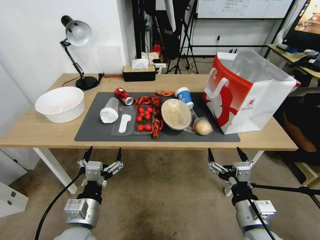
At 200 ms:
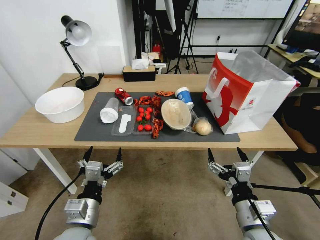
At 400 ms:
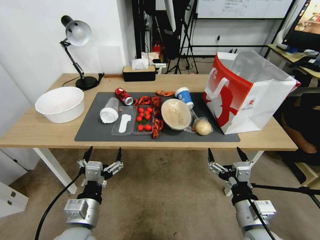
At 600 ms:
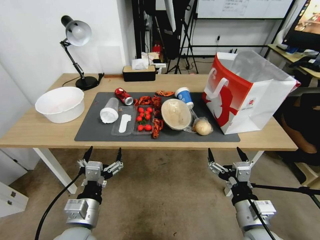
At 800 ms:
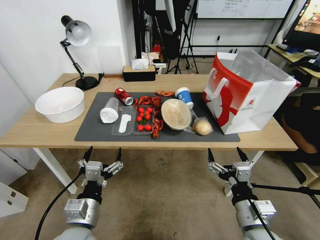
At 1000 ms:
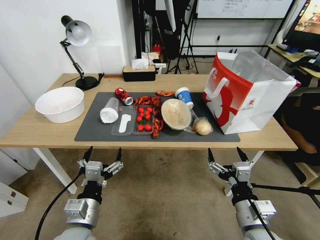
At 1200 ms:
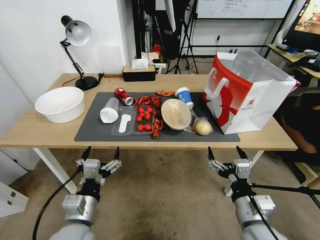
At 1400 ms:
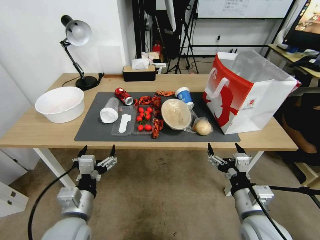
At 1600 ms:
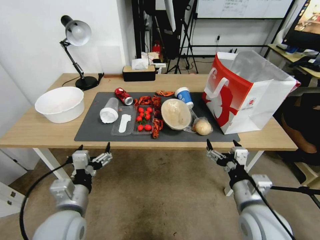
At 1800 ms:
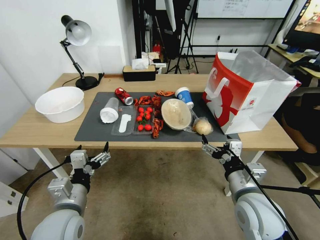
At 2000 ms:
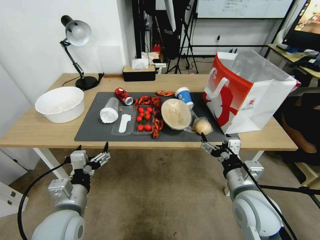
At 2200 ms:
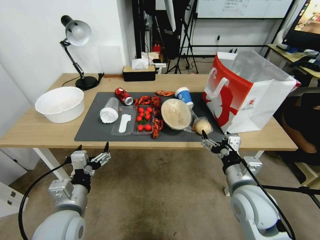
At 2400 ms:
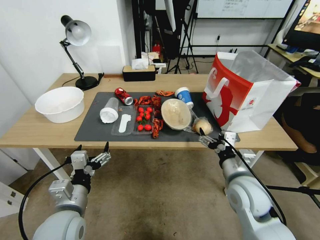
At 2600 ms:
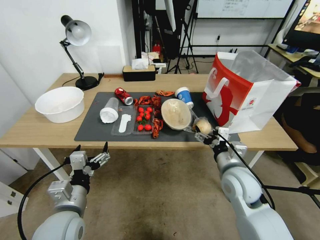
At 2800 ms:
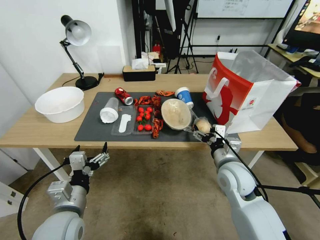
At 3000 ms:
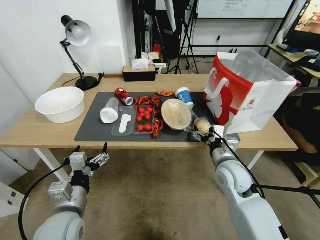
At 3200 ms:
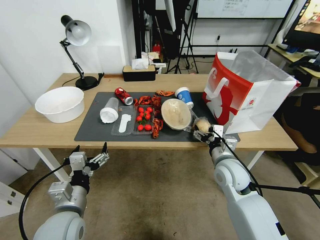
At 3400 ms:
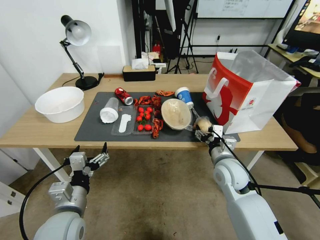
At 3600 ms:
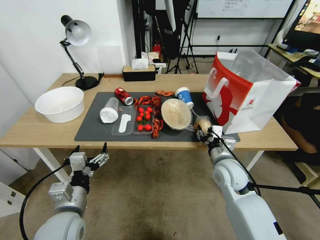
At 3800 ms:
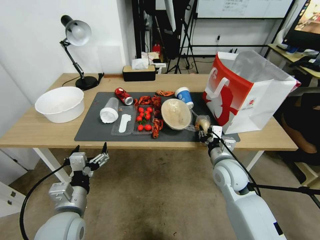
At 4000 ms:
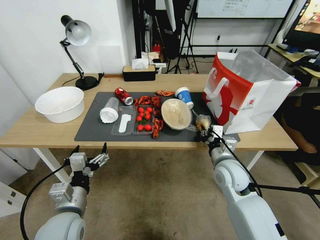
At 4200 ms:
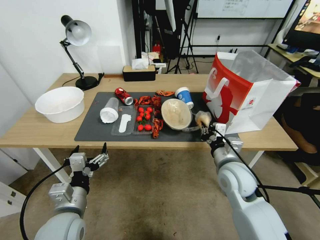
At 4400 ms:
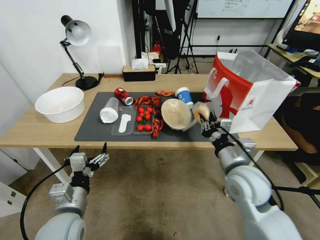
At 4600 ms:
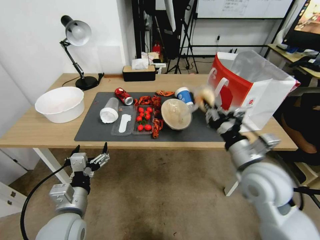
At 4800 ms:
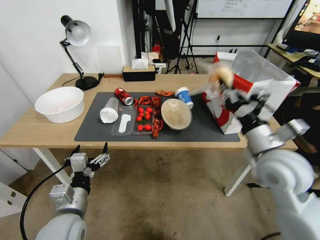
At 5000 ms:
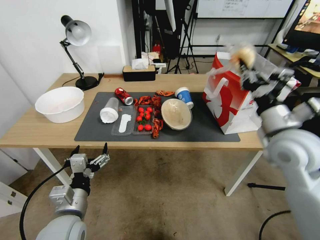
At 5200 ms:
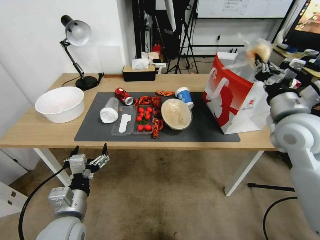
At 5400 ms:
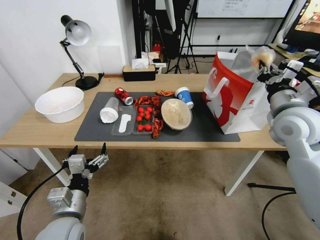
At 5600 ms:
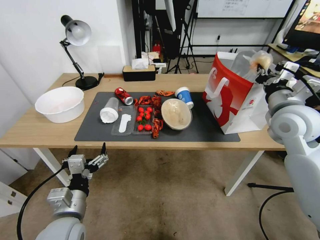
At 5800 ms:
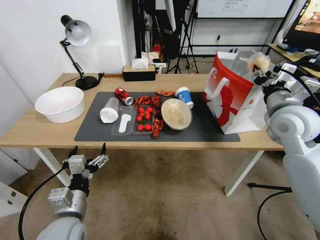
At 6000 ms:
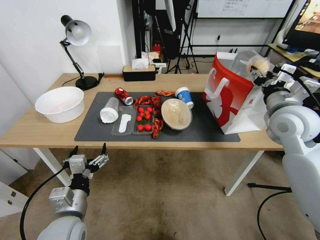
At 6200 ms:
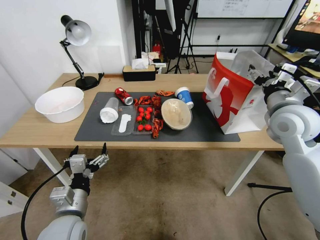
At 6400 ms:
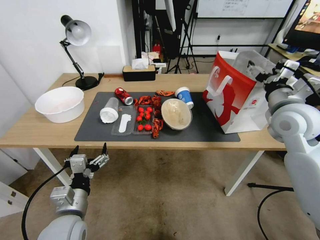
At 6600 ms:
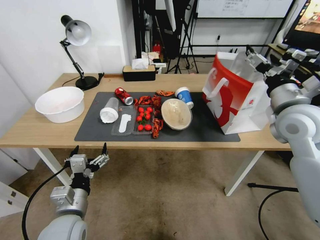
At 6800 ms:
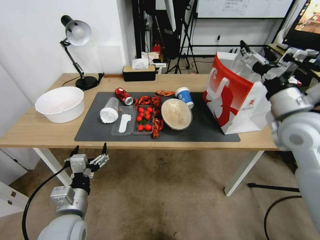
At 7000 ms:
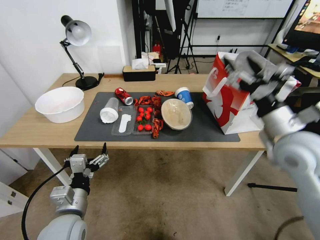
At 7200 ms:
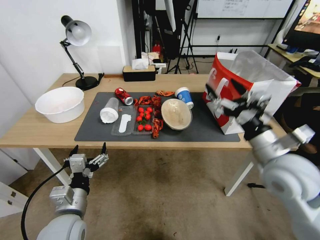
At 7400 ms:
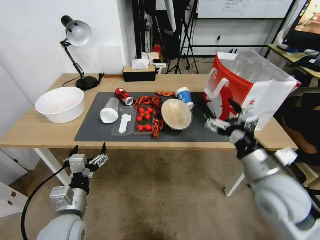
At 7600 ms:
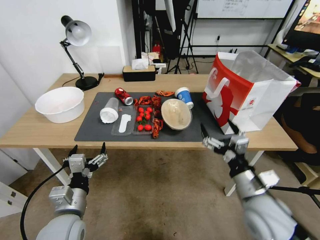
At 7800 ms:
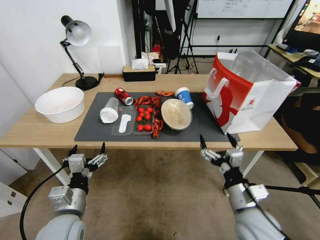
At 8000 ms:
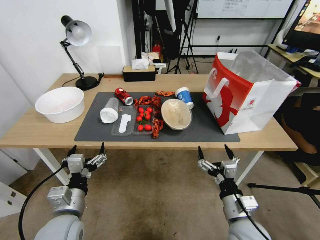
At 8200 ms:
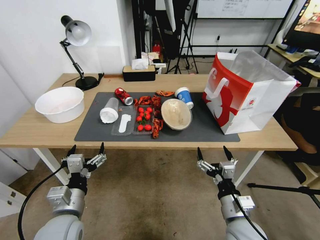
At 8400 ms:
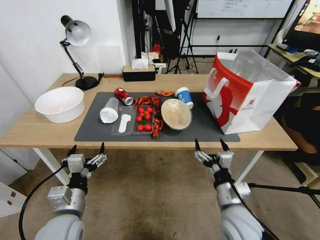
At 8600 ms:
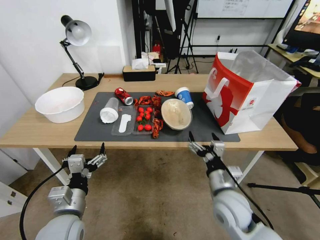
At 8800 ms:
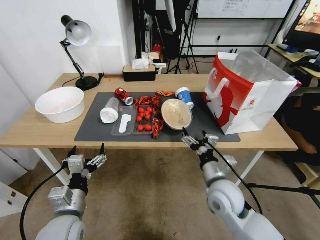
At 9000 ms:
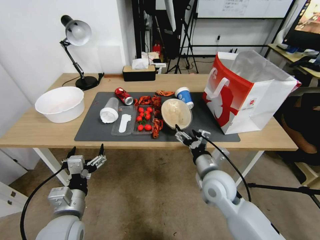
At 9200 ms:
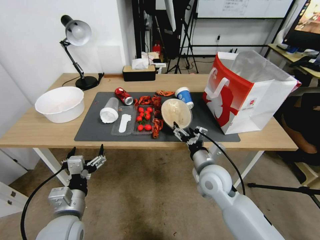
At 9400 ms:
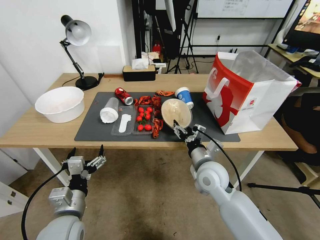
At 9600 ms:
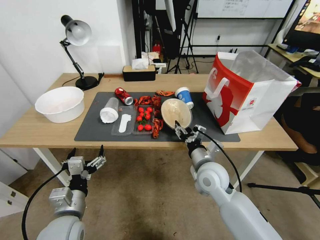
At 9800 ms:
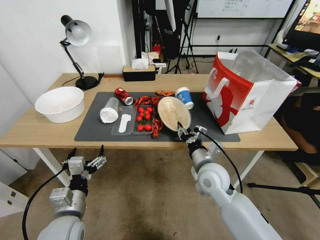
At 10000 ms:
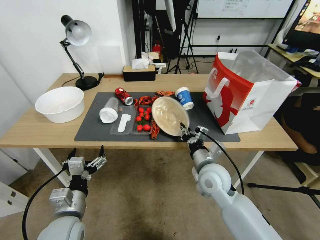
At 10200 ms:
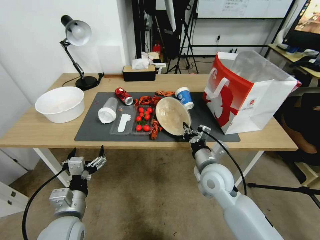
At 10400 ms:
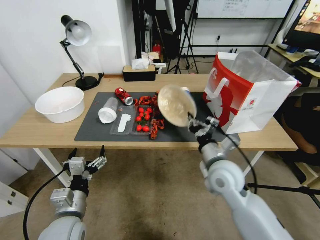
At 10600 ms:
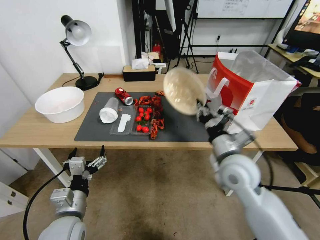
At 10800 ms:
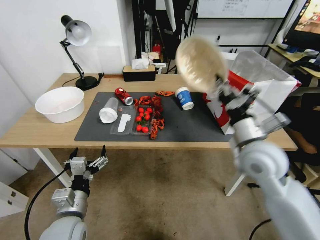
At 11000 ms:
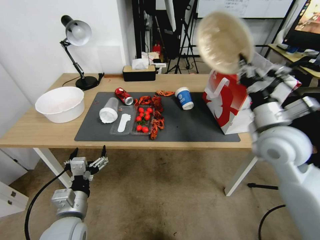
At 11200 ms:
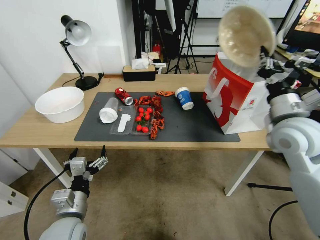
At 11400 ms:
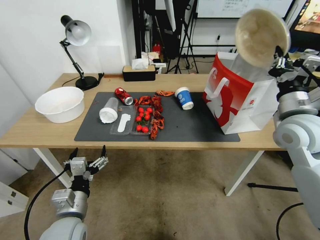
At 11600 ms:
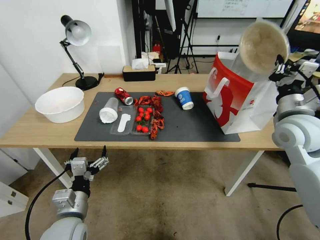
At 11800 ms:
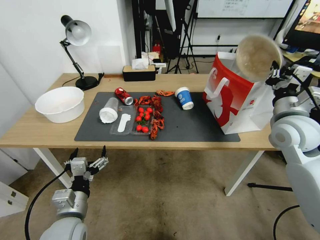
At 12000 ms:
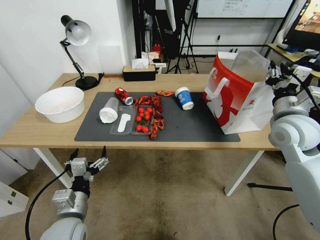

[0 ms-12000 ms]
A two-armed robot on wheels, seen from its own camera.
1600 ms to 3000 ms: The right gripper moves forward, roughly 10 cm.
3000 ms to 4400 ms: The right gripper closes its fingers.
4400 ms to 6000 ms: The right gripper moves upward, to the right and forward, approximately 20 cm, and opens.
6000 ms to 7600 ms: The right gripper is displaced backward, downward and to the left by roughly 25 cm, and opens up.
7600 ms to 9000 ms: The right gripper is displaced forward and to the left by approximately 10 cm.
9000 ms to 10400 ms: The right gripper closes.
10400 ms to 12000 ms: The right gripper moves to the right and upward, approximately 20 cm.

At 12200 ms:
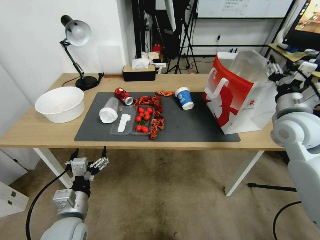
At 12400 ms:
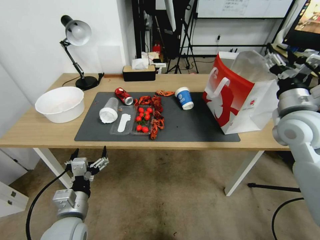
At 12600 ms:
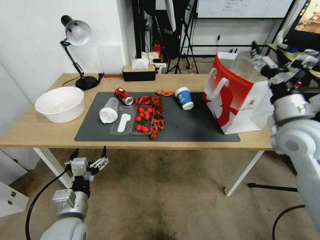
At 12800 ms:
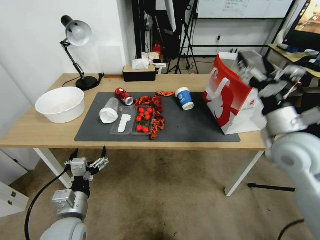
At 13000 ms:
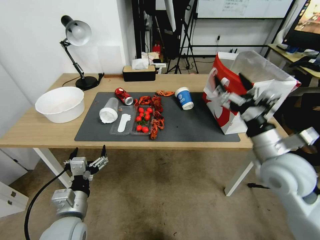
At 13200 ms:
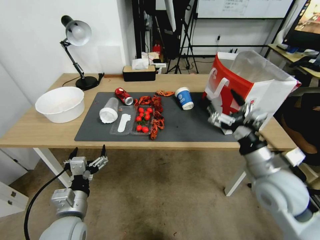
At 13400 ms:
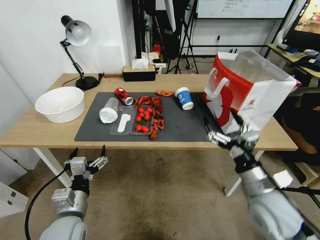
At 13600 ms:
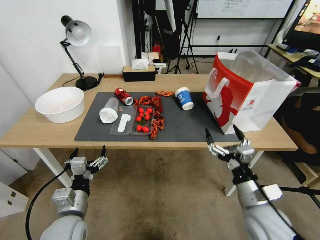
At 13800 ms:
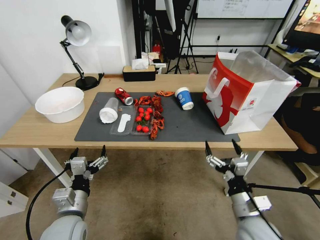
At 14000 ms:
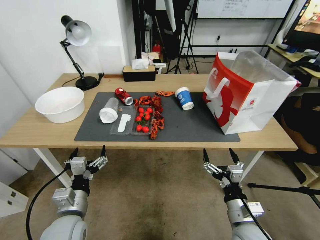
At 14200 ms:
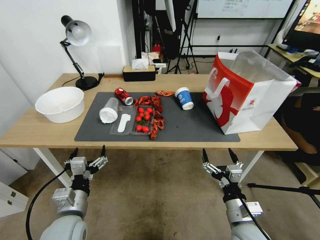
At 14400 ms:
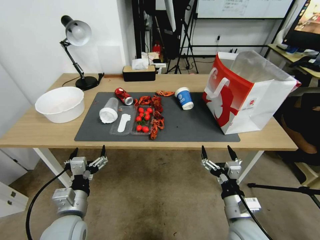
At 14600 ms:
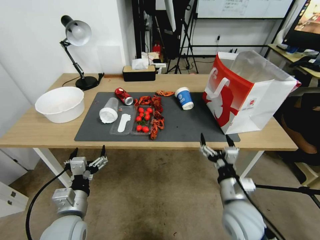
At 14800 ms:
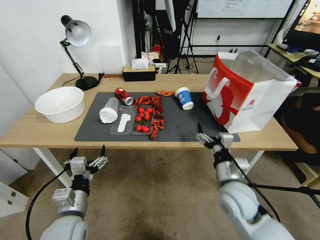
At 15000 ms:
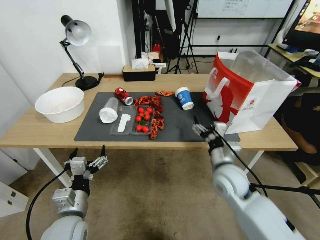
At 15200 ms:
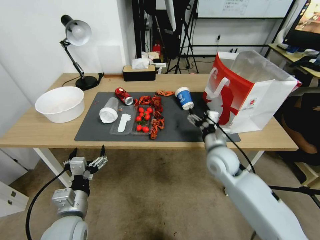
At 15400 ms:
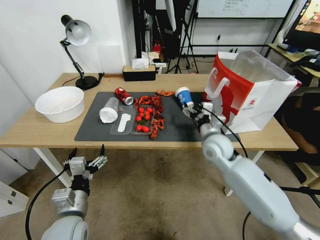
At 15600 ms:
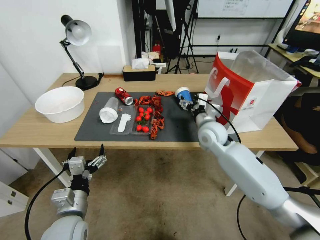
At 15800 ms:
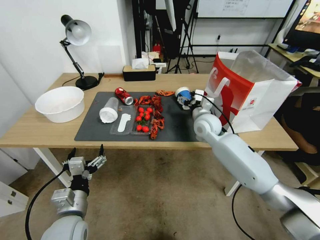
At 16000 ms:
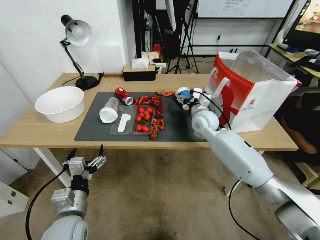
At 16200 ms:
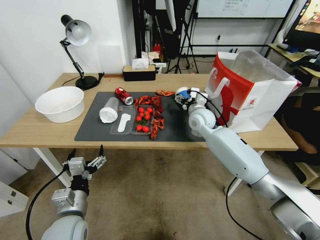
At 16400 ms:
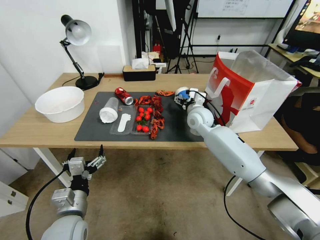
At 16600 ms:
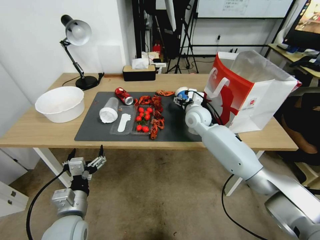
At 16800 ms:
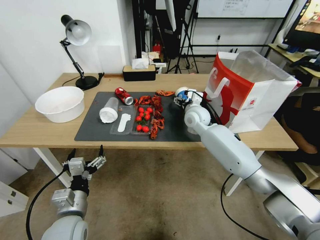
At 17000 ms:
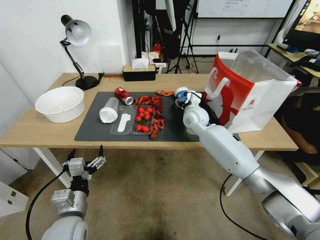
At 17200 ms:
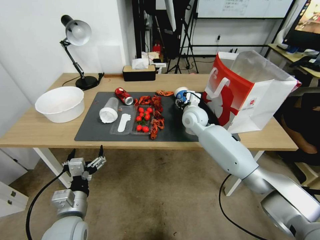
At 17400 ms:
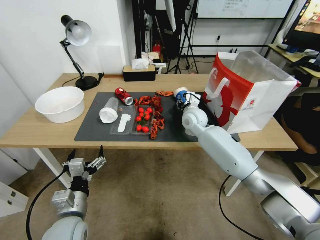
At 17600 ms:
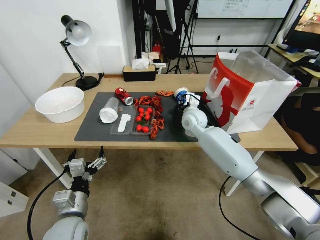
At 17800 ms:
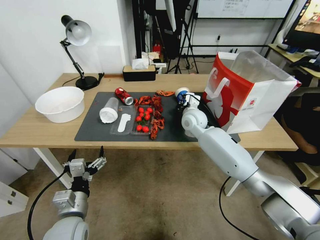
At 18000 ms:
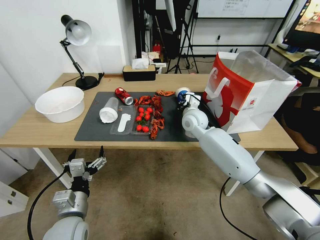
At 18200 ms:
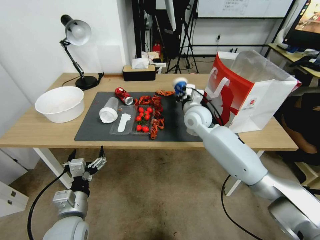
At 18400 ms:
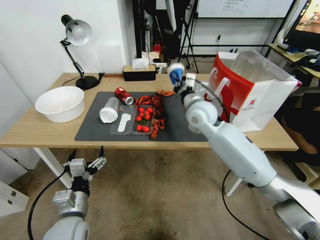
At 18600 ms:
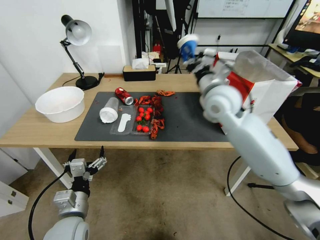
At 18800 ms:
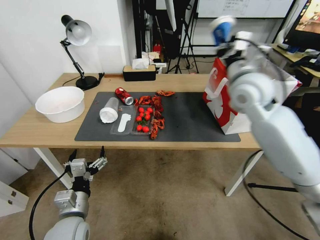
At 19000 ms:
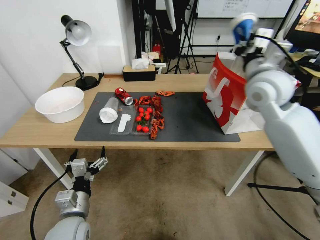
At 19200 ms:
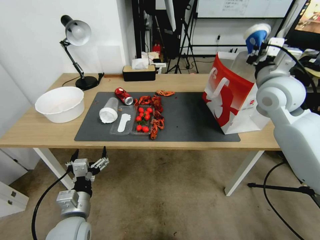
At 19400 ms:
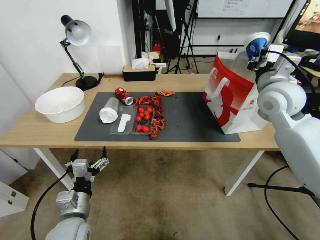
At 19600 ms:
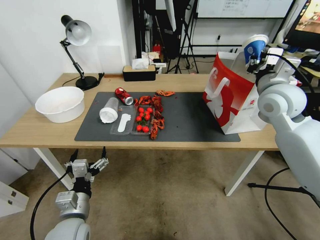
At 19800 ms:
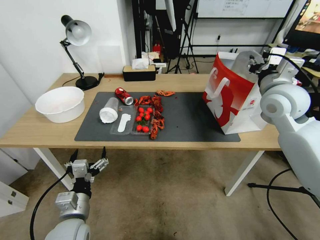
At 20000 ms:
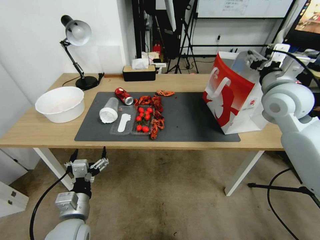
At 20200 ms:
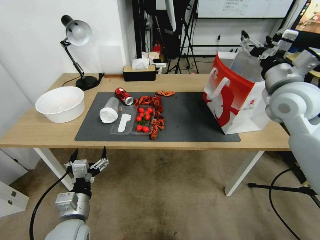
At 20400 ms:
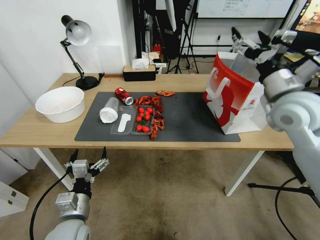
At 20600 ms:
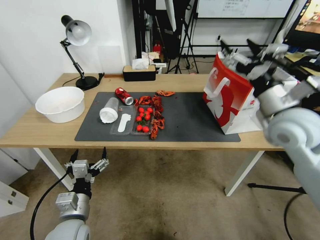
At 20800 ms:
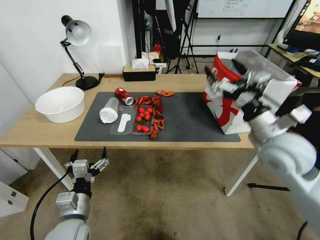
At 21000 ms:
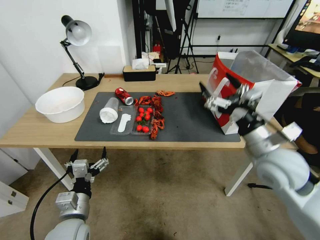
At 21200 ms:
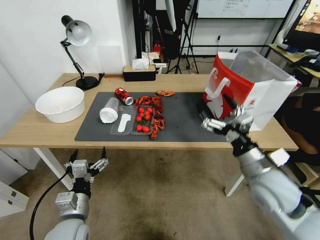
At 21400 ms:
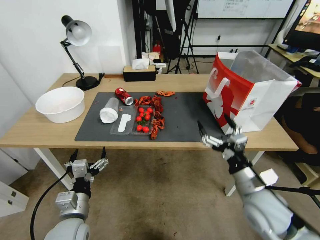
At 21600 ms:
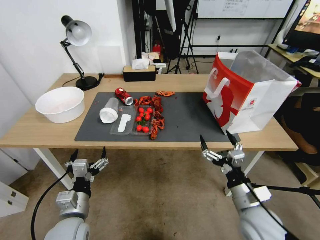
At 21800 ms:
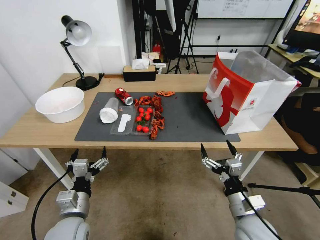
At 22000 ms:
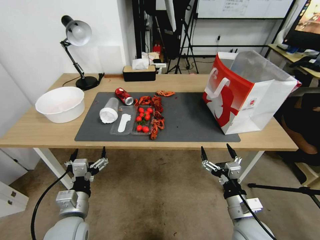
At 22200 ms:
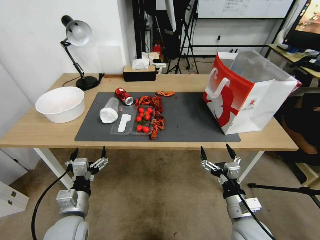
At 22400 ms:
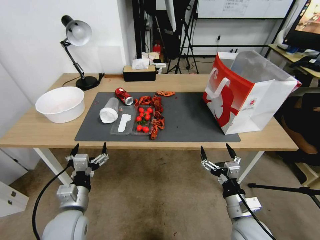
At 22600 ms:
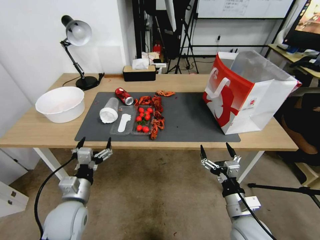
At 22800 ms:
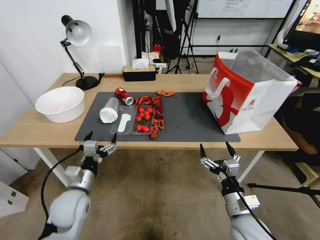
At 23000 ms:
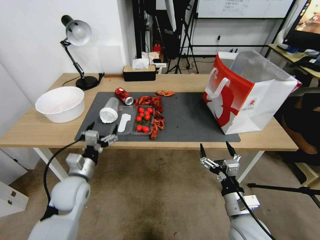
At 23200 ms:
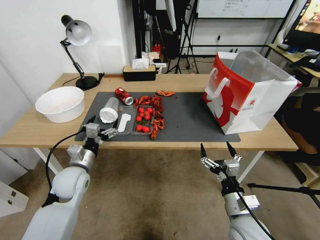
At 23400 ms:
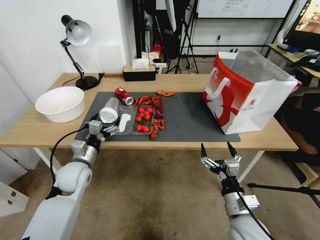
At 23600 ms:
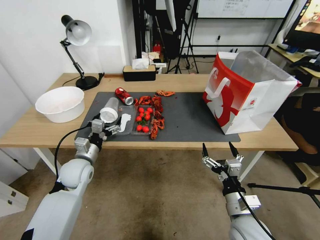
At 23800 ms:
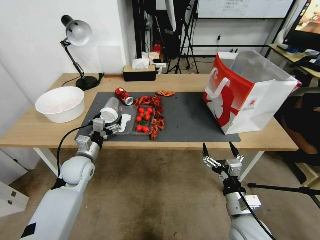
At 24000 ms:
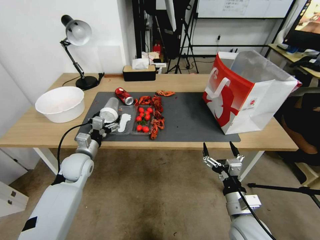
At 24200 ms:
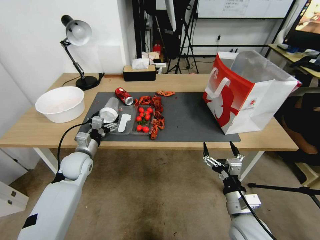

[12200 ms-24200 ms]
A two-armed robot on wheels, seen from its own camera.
12200 ms to 13800 ms: The right gripper heads downward, backward and to the left, covering roughly 30 cm, and opens.
13800 ms to 15200 ms: The right gripper moves forward, approximately 20 cm.
15200 ms to 16600 ms: The right gripper heads forward, covering about 15 cm.
16600 ms to 18200 ms: The right gripper closes up.
18200 ms to 19800 ms: The right gripper is displaced to the right, upward and backward by some 25 cm, and opens its fingers.
19800 ms to 21200 ms: The right gripper travels backward and downward by roughly 20 cm, and opens.
21200 ms to 22600 ms: The right gripper shifts approximately 20 cm downward and backward.
22600 ms to 24200 ms: The left gripper is displaced forward by some 15 cm.
